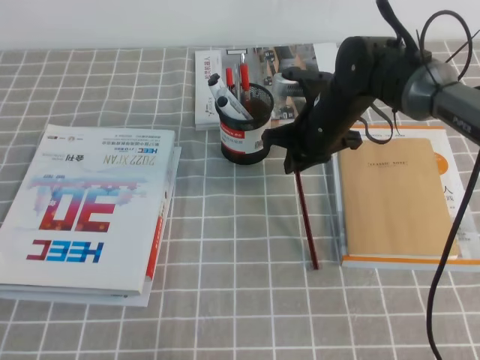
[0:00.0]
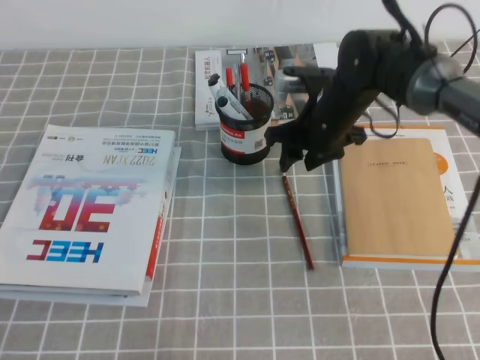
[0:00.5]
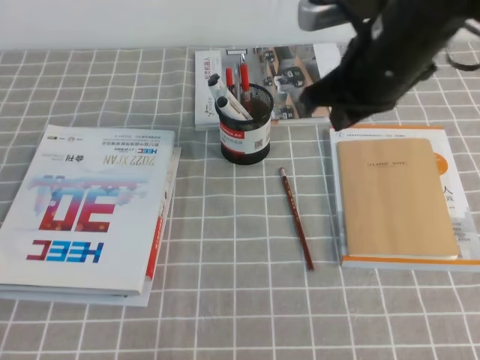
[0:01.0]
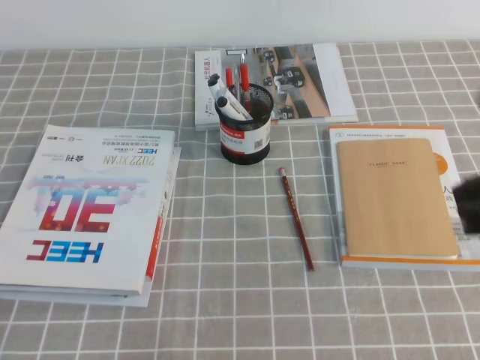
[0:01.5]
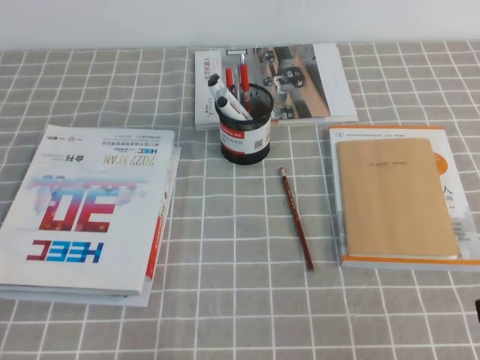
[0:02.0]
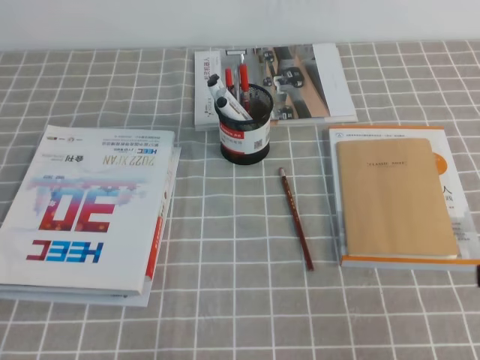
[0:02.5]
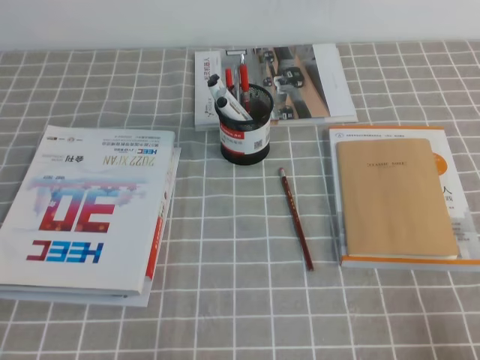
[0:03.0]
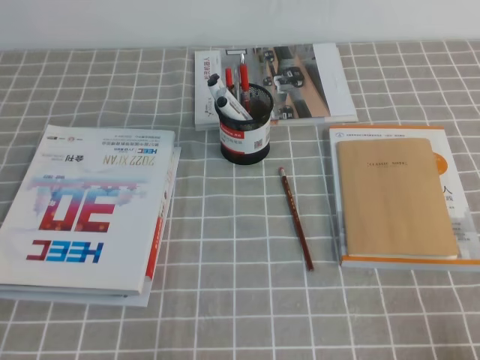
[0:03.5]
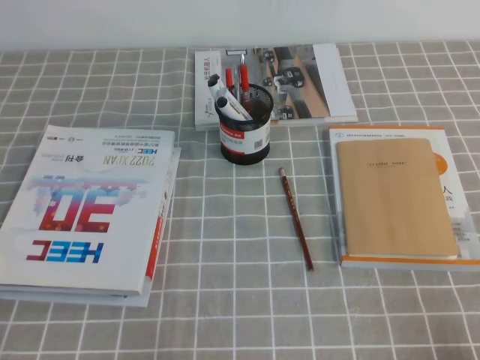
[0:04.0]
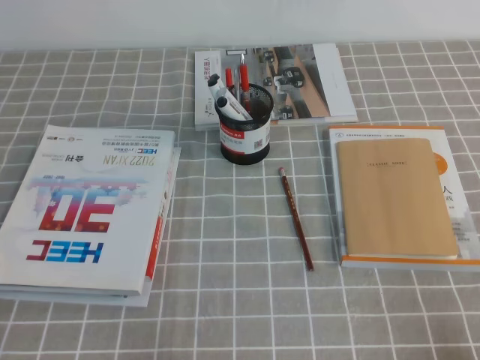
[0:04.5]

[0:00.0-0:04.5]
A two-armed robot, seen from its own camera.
Step, 0:00.0 to 0:04.5: Pick up the pen from the pen holder.
0:00.0 to 0:02.0: The right gripper moves backward and to the right, approximately 35 cm, and opens, then closes once more.
0:02.0 to 0:04.5: The right gripper is displaced downward, to the right and backward by approximately 15 cm.
